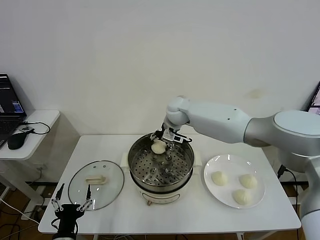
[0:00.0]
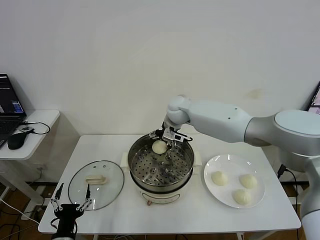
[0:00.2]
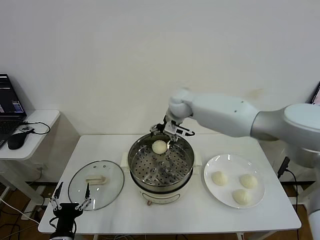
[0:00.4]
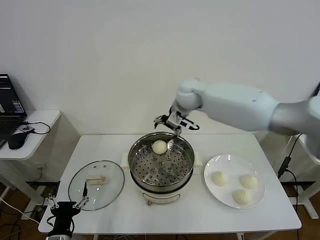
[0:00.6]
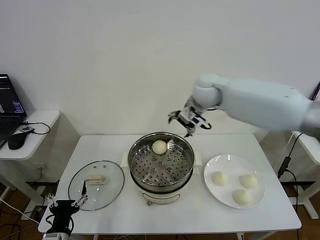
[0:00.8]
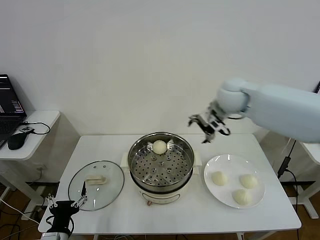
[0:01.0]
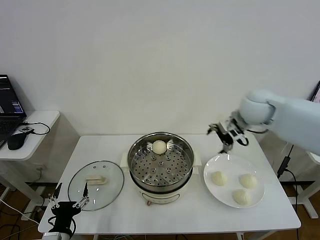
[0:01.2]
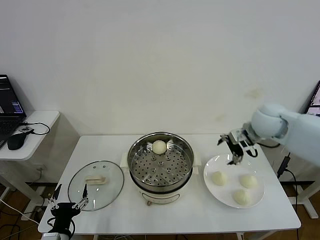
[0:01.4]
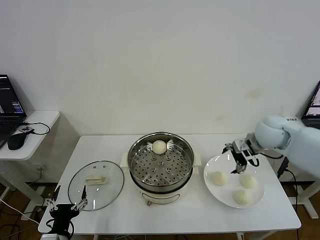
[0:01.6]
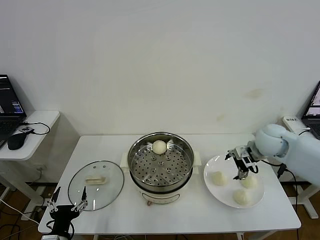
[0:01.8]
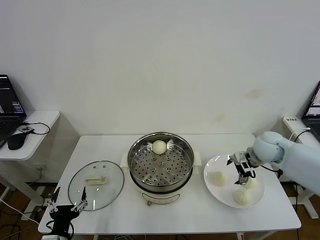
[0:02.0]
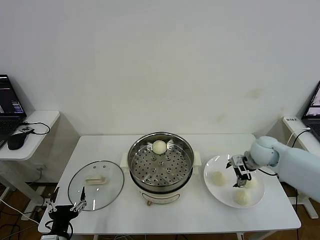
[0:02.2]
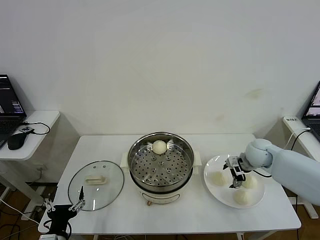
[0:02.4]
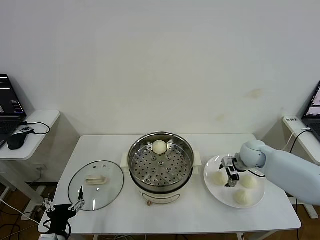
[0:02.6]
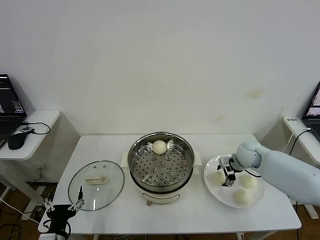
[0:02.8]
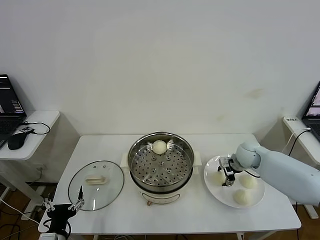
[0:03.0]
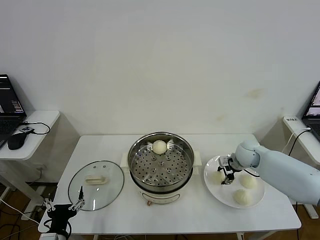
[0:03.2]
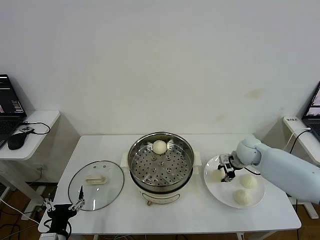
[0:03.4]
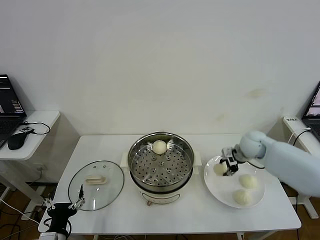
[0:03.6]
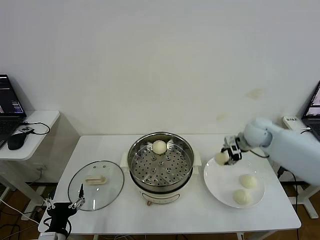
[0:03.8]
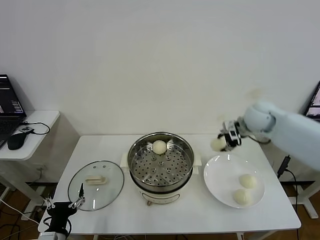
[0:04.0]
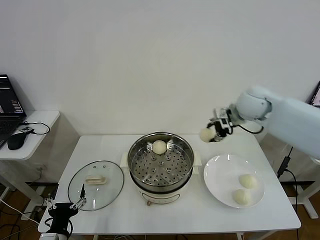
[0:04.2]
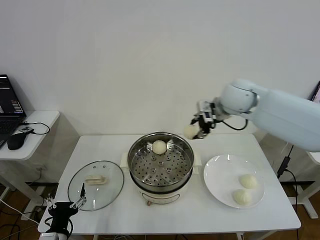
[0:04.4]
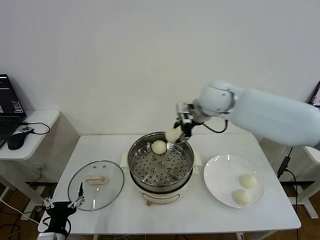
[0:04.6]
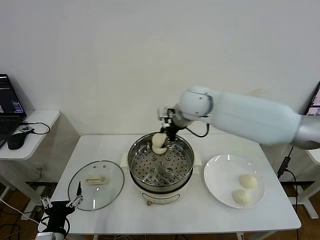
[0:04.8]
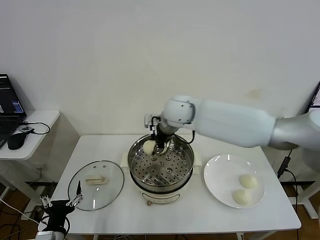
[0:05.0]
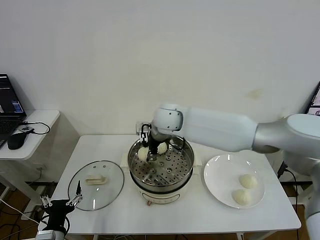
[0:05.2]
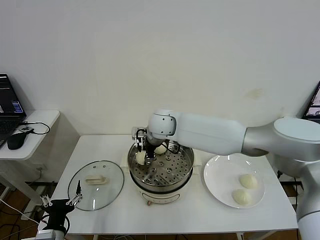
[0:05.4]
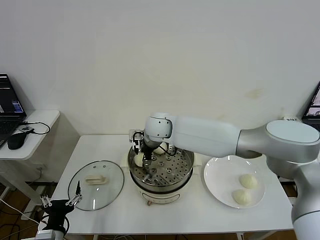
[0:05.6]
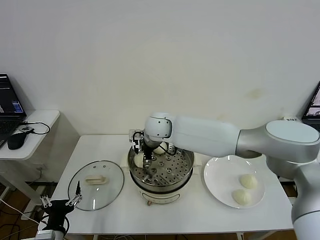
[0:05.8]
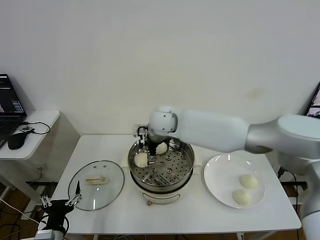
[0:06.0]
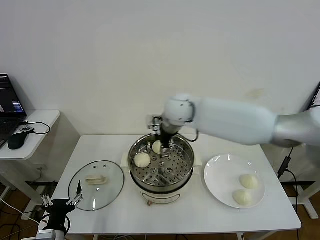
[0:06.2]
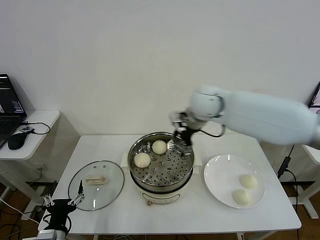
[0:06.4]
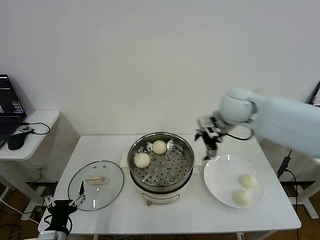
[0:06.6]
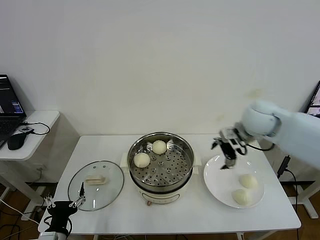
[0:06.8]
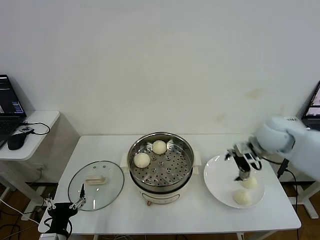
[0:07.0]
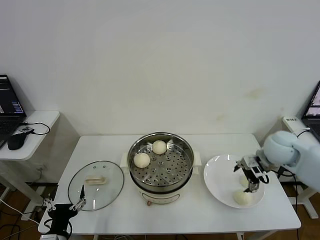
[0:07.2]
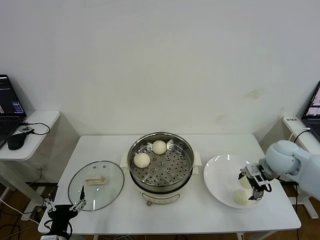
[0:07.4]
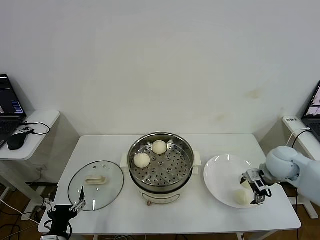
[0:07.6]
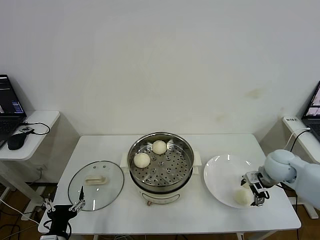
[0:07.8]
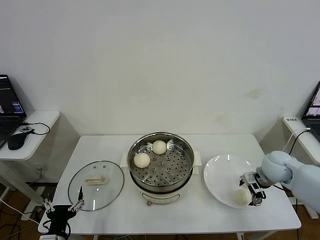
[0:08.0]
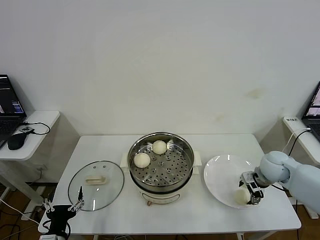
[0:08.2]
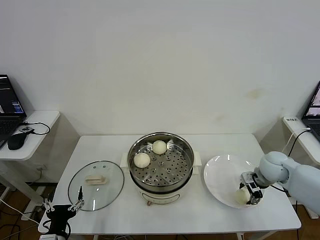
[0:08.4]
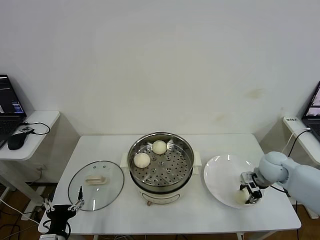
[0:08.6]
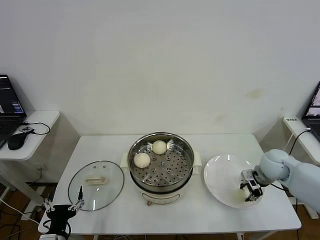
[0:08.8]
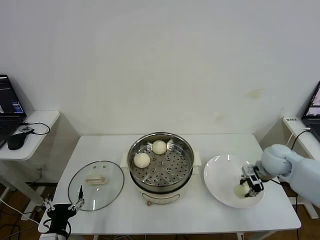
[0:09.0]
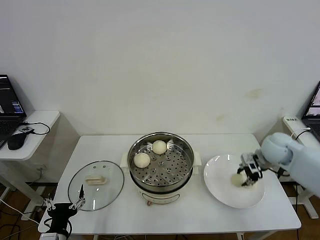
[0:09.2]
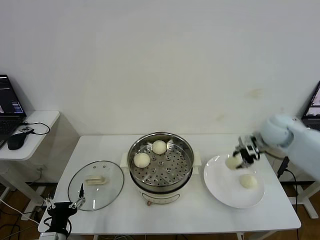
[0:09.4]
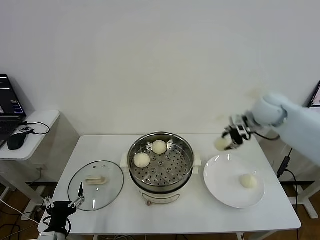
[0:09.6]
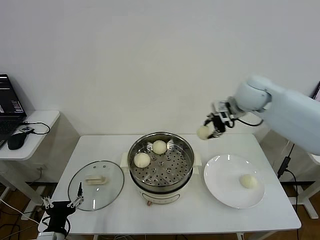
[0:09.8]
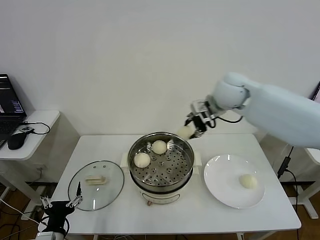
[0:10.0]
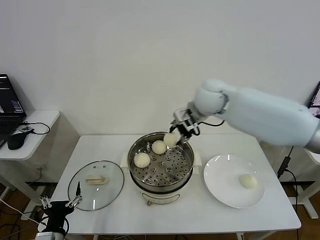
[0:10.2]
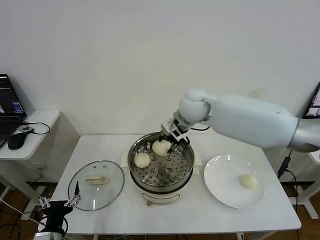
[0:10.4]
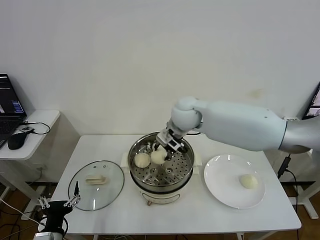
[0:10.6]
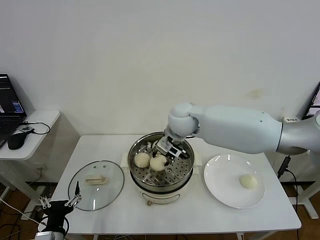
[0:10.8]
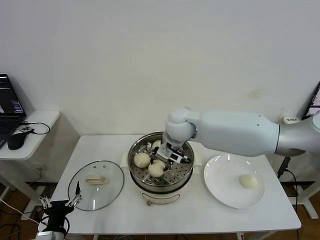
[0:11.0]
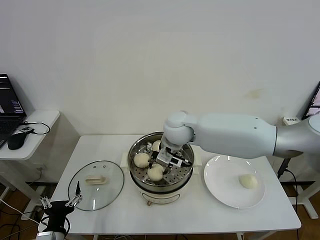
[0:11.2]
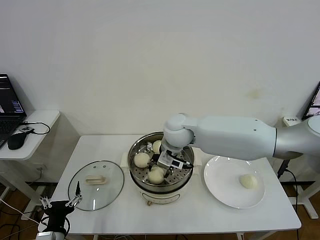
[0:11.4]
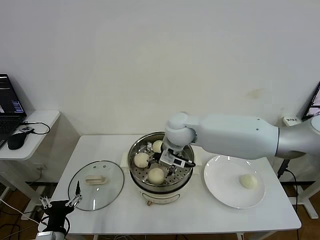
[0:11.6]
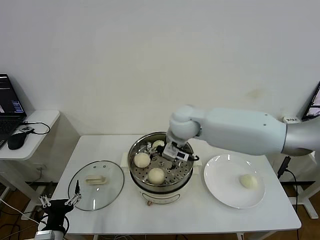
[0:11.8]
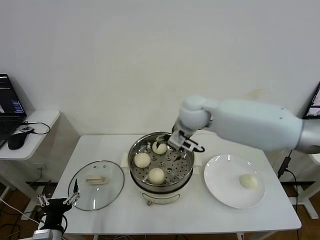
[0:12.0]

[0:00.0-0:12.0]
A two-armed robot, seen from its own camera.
Step, 0:00.4 to 0:03.2: Grasp the baozi in the plate with right gripper.
Step, 0:03.4 to 0:05.8: Place the baozi on the steamer with right gripper.
Step, 0:06.0 to 0:08.6: Grasp the baozi in the plate with right gripper.
Step, 0:09.0 to 0:11.6: Place the baozi on the steamer with right gripper.
0:00.0 to 0:01.6: The right gripper shifts some 30 cm to the right and backward.
0:01.6 to 0:03.0: The right gripper shifts roughly 15 cm downward, and closes.
0:03.0 to 0:04.4: The right gripper shifts approximately 30 cm upward and to the left.
0:04.4 to 0:06.0: The right gripper shifts about 20 cm to the left and downward, and opens up.
0:06.0 to 0:07.6: The right gripper is displaced to the right by roughly 35 cm.
0:07.6 to 0:09.0: The right gripper closes its fingers.
0:09.0 to 0:10.4: The right gripper travels to the left and upward by approximately 35 cm.
0:10.4 to 0:12.0: The right gripper opens.

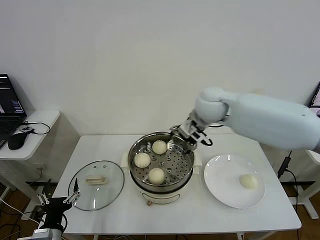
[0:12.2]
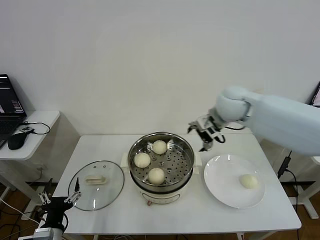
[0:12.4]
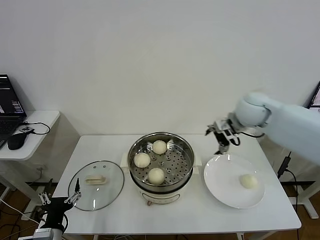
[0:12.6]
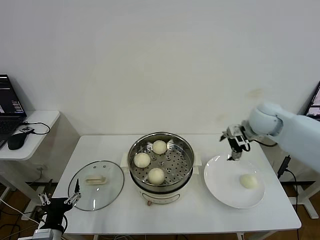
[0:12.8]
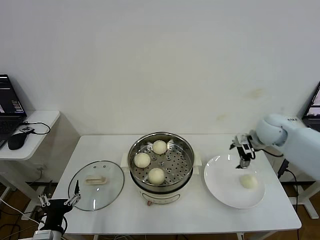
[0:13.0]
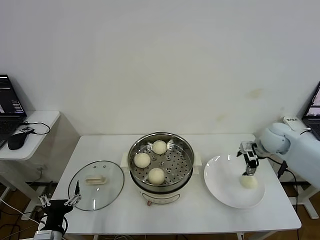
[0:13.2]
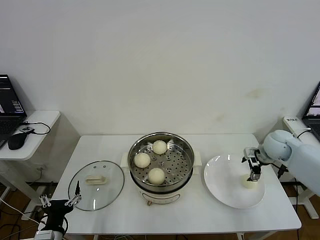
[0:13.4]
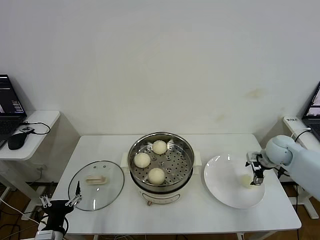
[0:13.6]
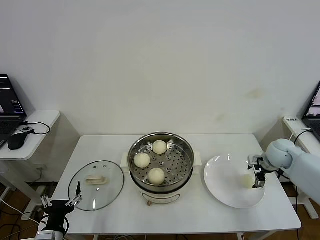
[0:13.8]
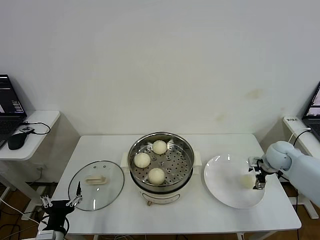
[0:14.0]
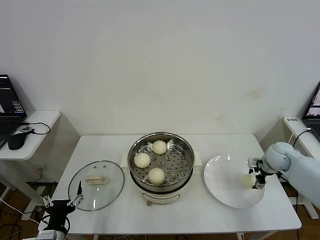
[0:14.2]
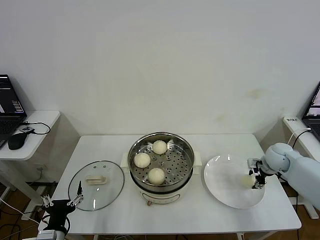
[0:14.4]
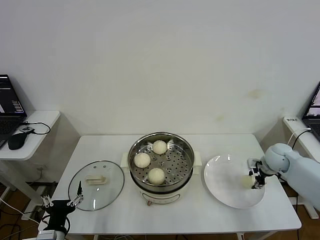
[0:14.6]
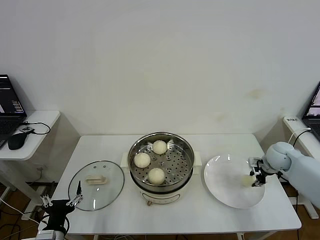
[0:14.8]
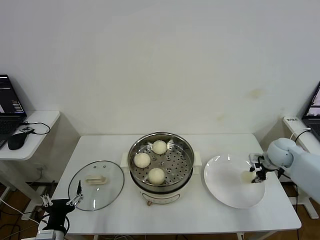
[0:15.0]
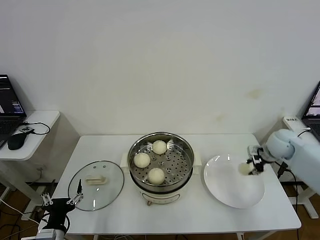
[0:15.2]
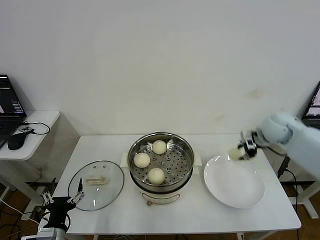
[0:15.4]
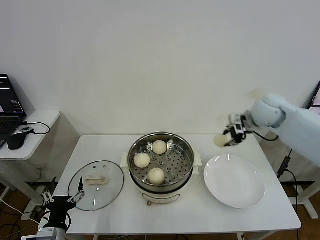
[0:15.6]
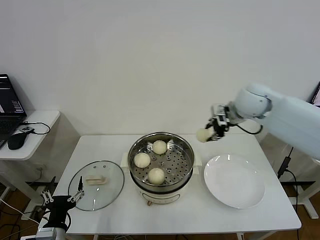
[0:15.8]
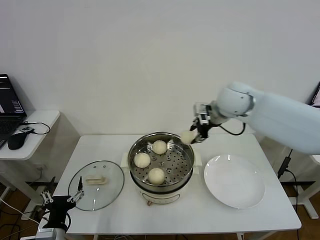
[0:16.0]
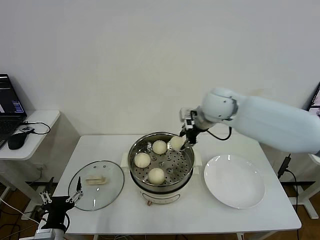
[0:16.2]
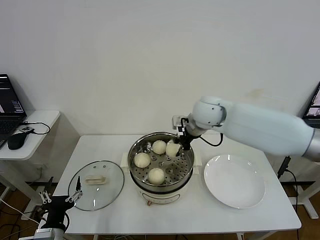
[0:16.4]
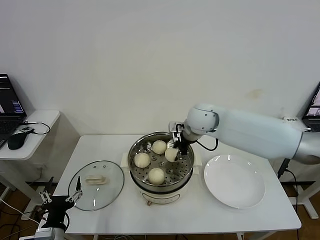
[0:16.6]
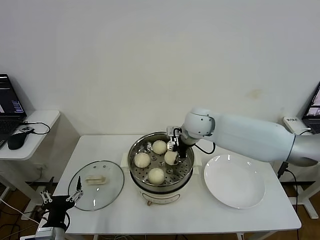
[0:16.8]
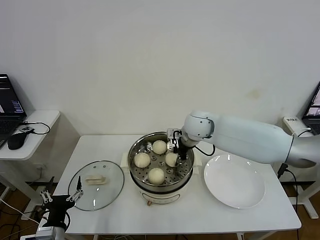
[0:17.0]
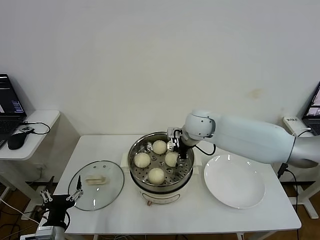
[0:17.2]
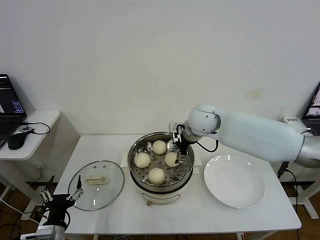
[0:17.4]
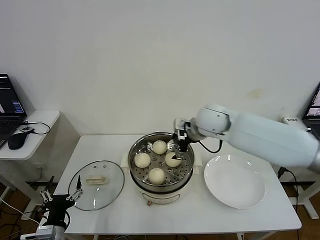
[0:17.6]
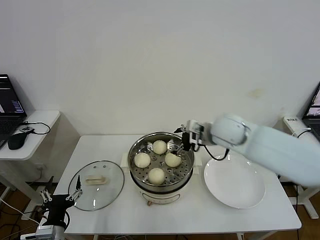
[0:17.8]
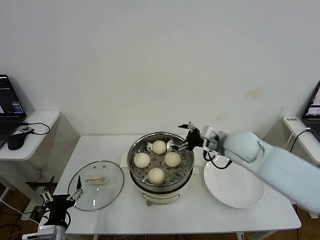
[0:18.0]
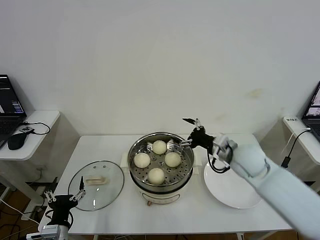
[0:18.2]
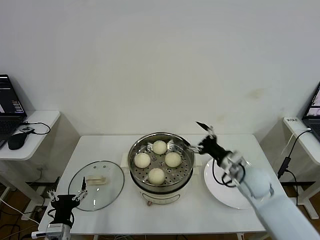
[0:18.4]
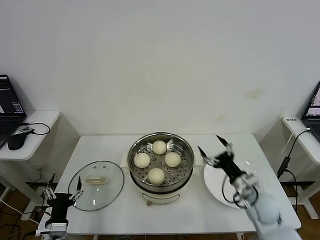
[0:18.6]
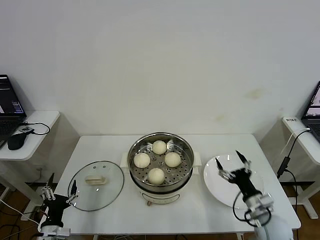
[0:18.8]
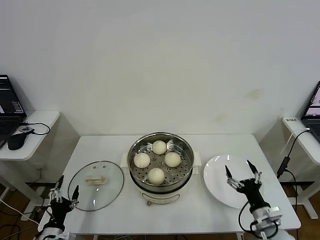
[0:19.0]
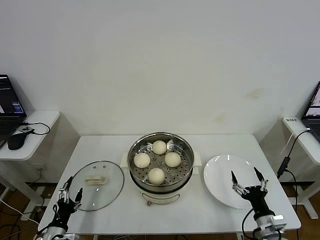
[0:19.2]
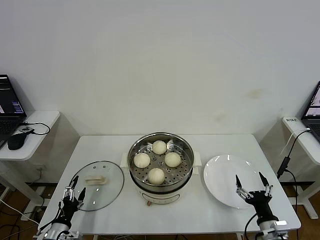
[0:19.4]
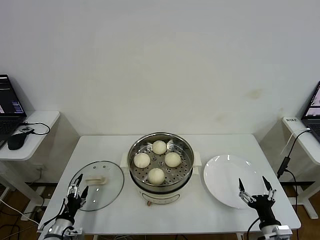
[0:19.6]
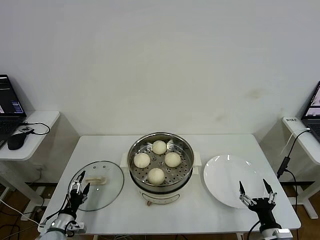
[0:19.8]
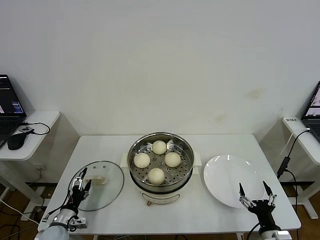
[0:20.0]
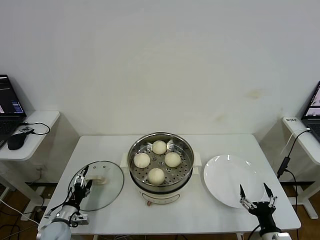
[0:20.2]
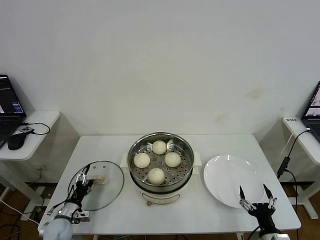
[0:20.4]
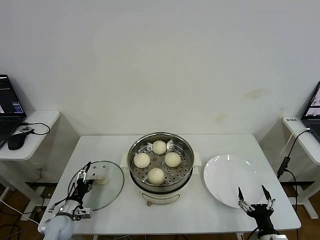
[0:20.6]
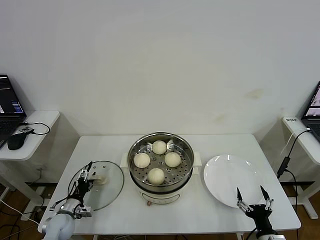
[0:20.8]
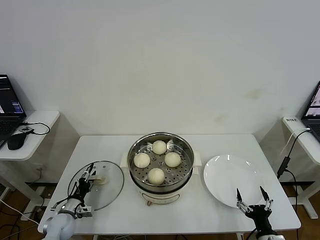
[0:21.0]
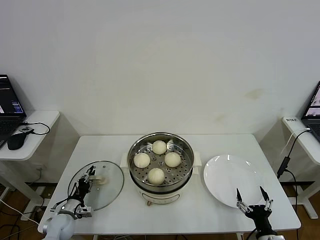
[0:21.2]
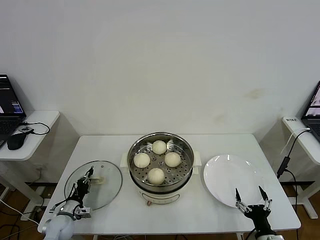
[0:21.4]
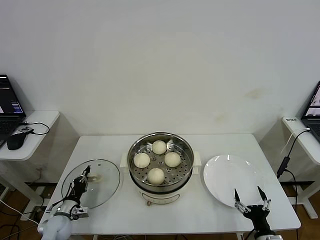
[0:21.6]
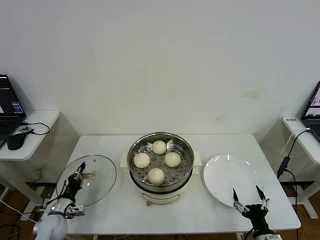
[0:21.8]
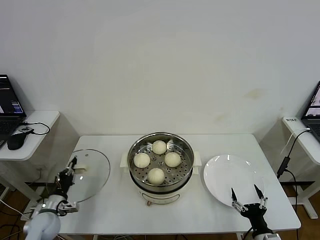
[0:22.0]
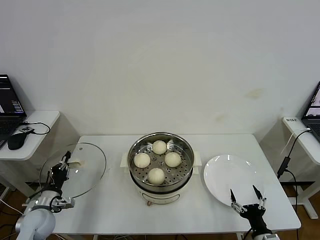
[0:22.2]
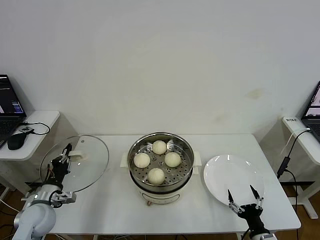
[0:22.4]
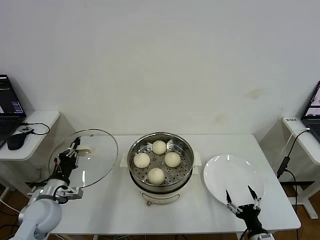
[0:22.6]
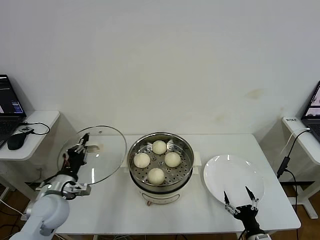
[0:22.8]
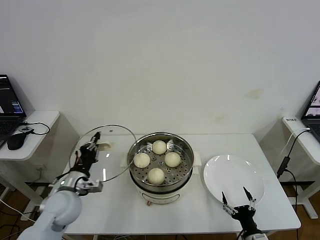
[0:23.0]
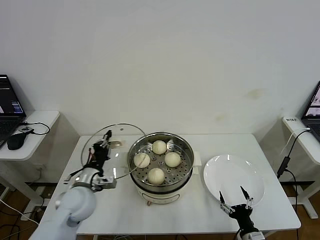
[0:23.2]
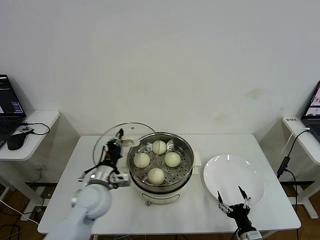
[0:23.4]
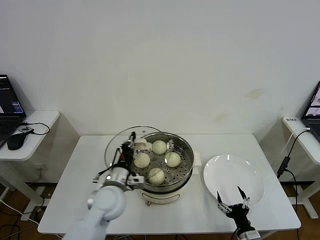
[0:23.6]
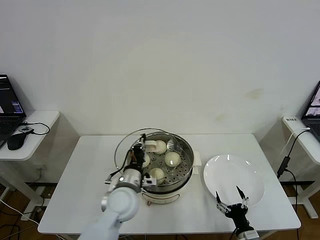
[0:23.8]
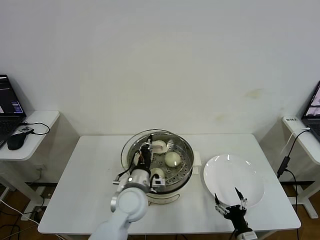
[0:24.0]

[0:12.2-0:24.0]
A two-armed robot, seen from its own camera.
Step, 0:12.2 to 0:14.8: Grasp the baozi in the plate with right gripper.
Step, 0:15.0 to 0:17.2: Place the baozi on the steamer with right gripper.
Step, 0:17.4 to 0:21.6: Grasp the pot lid with left gripper.
0:12.2 to 0:13.6: The right gripper shifts some 30 cm to the right and downward.
0:13.6 to 0:15.2: The right gripper closes.
0:15.2 to 0:16.6: The right gripper moves to the left, approximately 30 cm.
0:16.6 to 0:18.2: The right gripper is displaced to the right, backward and downward by about 20 cm, and opens.
0:18.2 to 0:19.6: The right gripper travels backward, downward and to the right by roughly 30 cm, while the left gripper travels downward and to the left by roughly 10 cm.
0:19.6 to 0:21.0: The left gripper heads forward, covering some 10 cm.
0:21.0 to 0:22.6: The left gripper is displaced upward by about 15 cm, and closes.
0:22.6 to 0:24.0: The left gripper travels to the right by approximately 25 cm.
